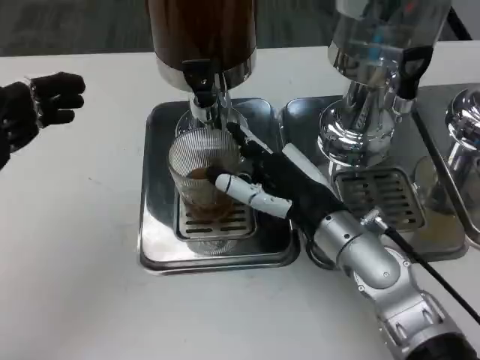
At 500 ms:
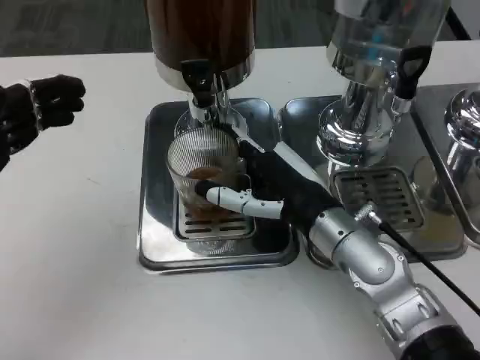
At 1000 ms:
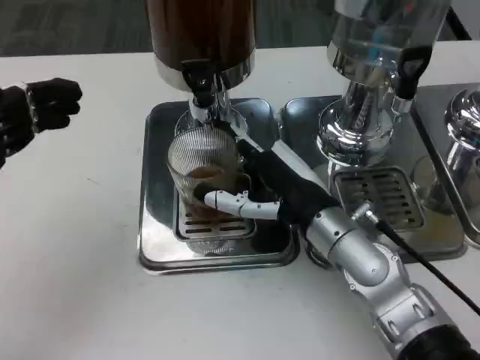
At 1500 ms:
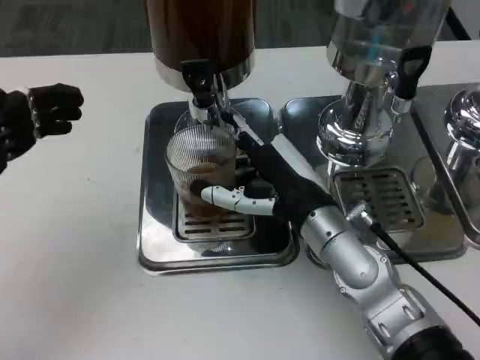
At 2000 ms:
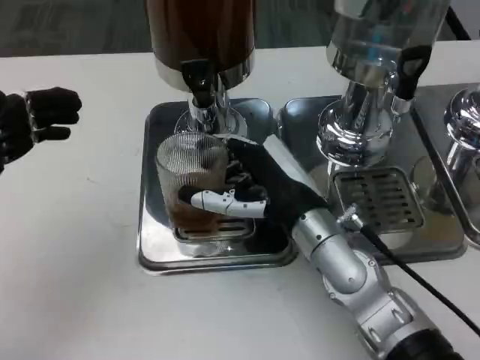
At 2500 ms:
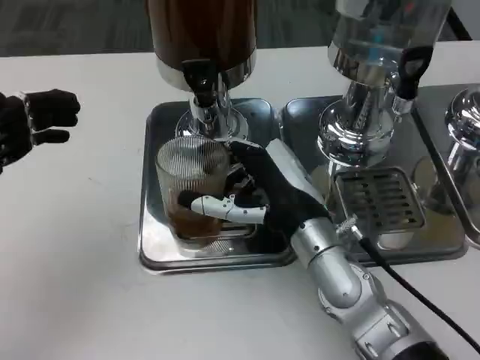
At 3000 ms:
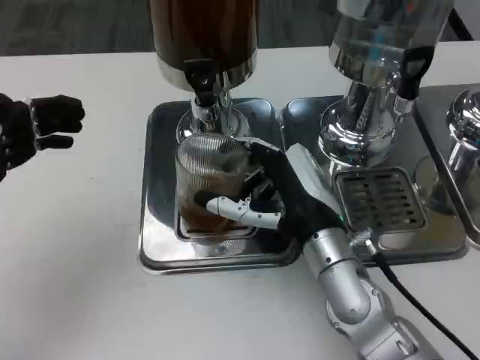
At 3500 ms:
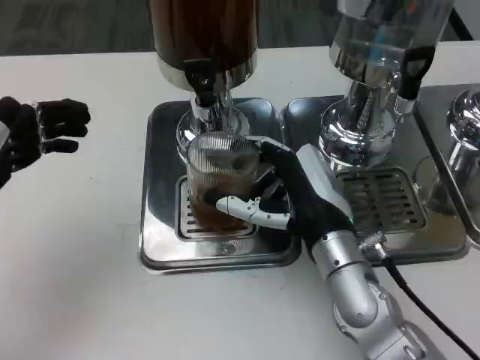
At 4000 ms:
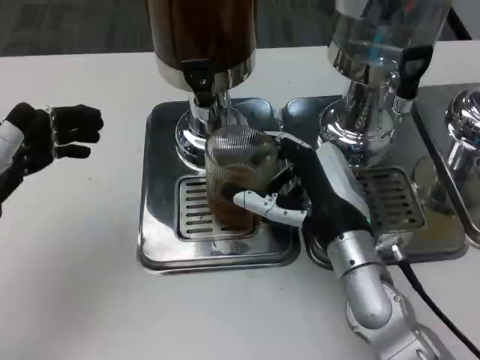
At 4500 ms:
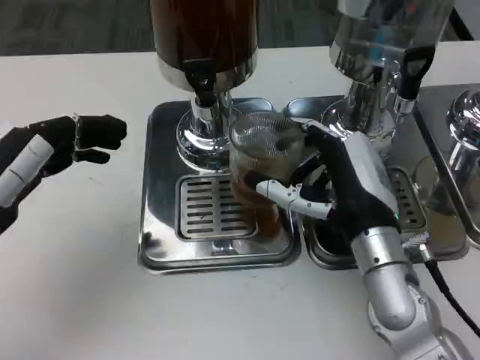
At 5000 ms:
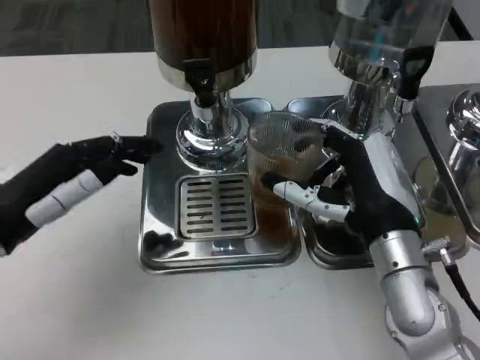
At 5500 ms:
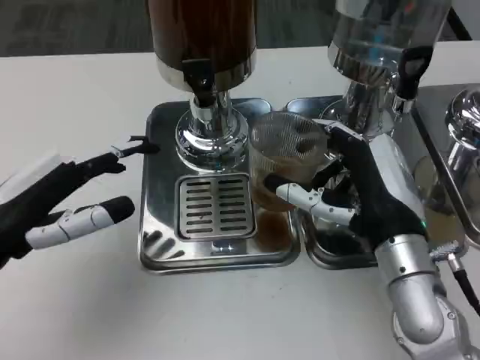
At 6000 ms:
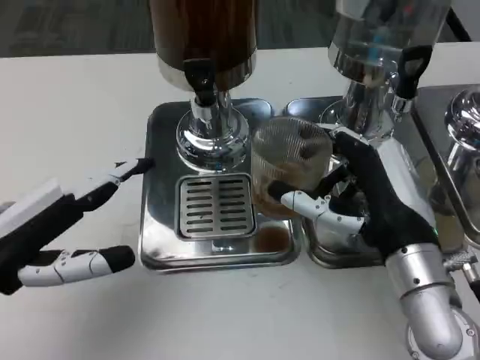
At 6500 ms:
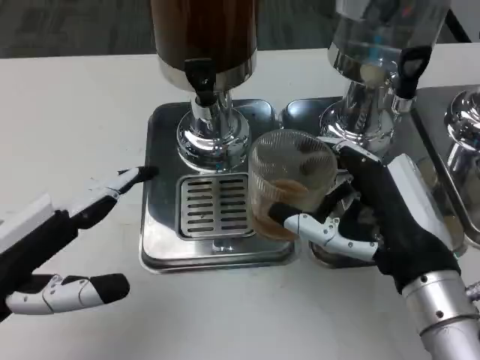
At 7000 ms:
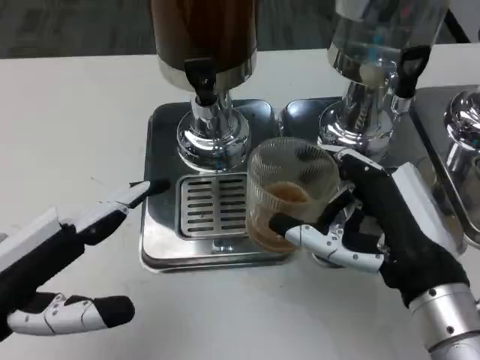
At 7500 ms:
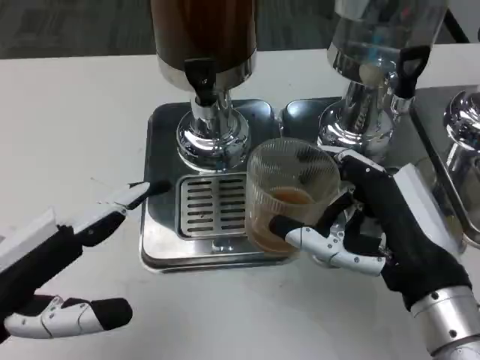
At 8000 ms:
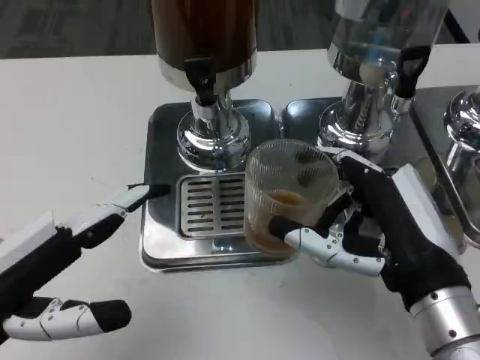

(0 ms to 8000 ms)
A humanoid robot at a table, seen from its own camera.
Task of the whole recording: Grasp the cup under the faucet to collect the drink, then remove the cup.
0 ms - 2000 ms: The hands make only small movements.
4000 ms - 6000 ms: The right hand ends up roughly 5 cm from where it was.
6000 ms - 8000 ms: The right hand heads backward, covering roughly 5 cm.

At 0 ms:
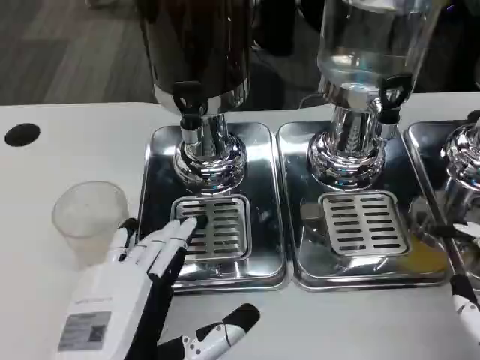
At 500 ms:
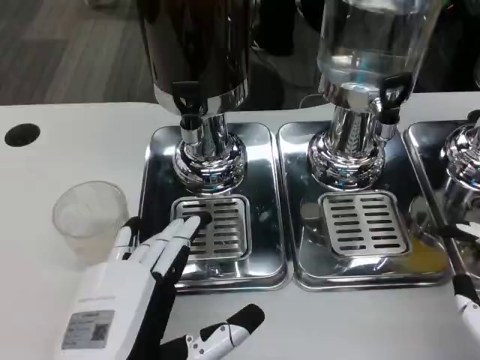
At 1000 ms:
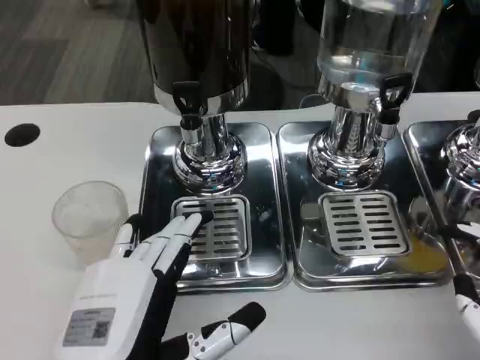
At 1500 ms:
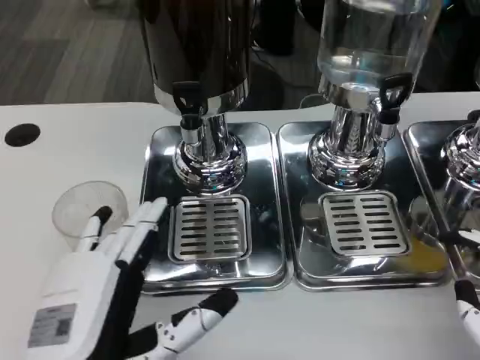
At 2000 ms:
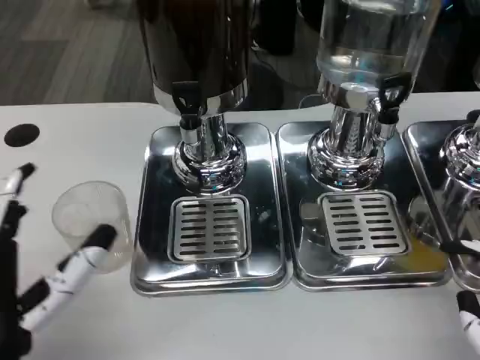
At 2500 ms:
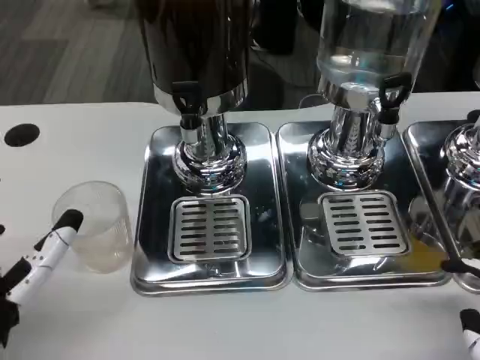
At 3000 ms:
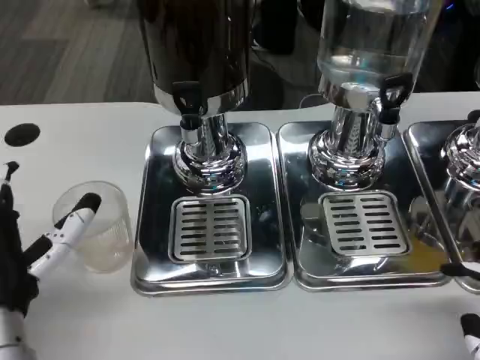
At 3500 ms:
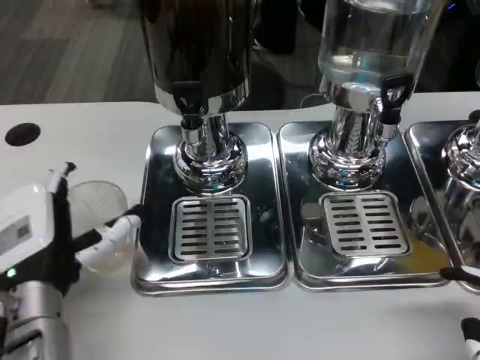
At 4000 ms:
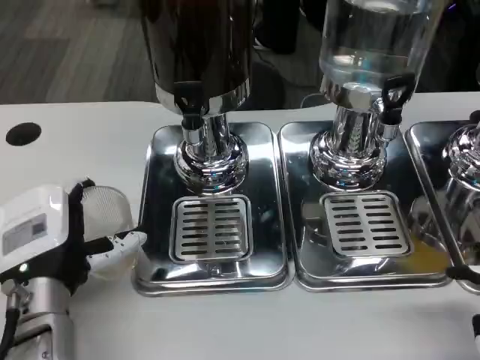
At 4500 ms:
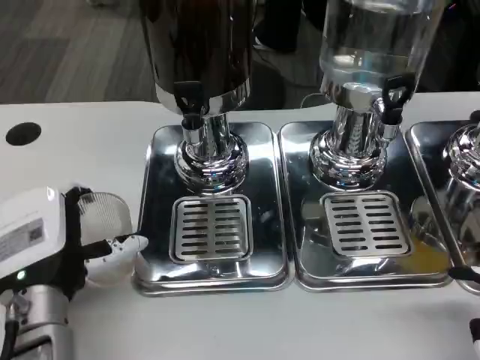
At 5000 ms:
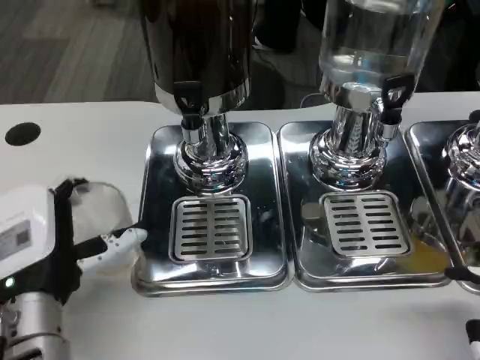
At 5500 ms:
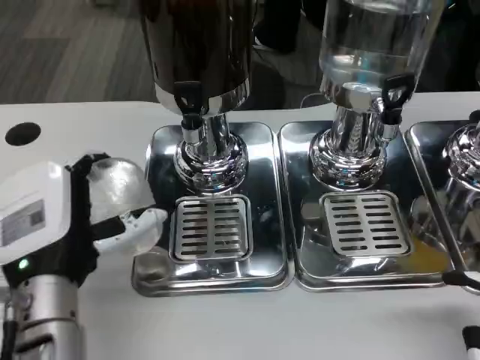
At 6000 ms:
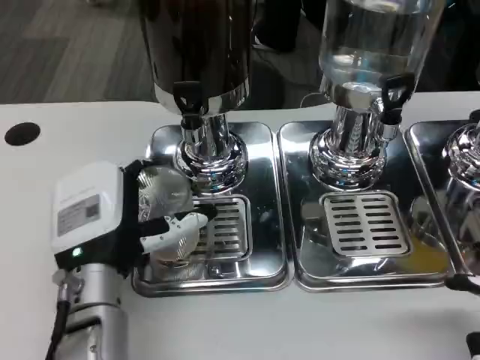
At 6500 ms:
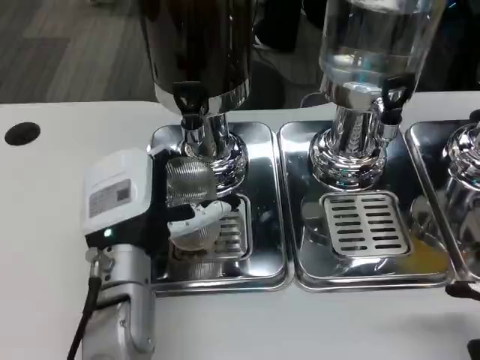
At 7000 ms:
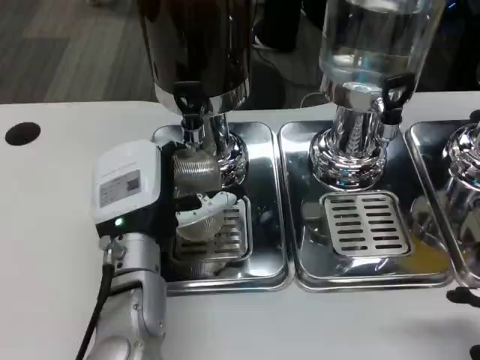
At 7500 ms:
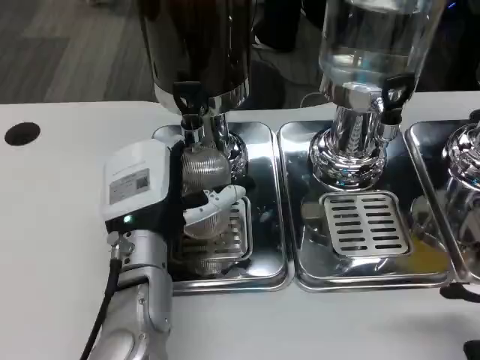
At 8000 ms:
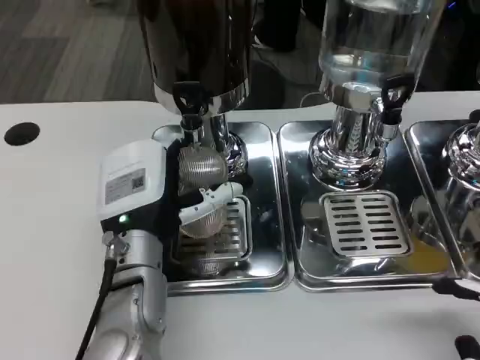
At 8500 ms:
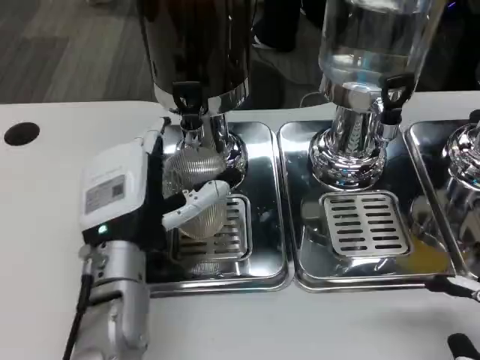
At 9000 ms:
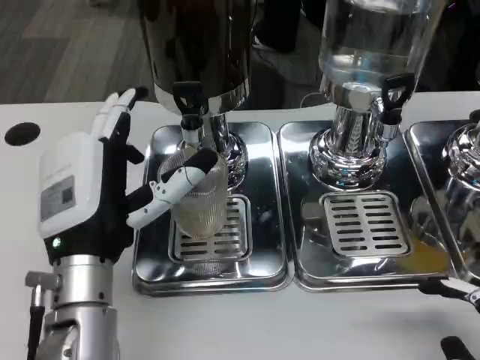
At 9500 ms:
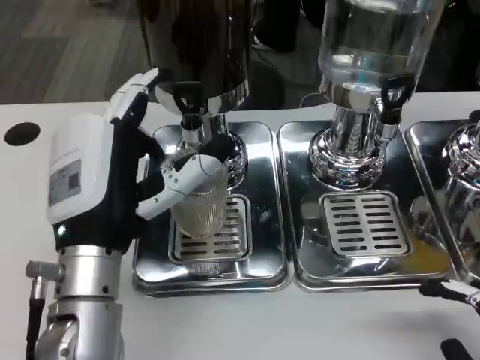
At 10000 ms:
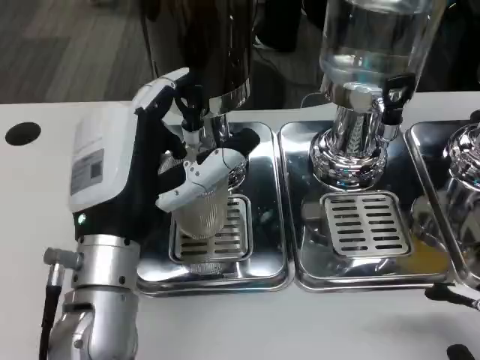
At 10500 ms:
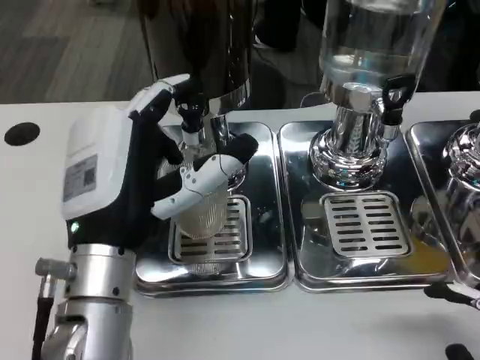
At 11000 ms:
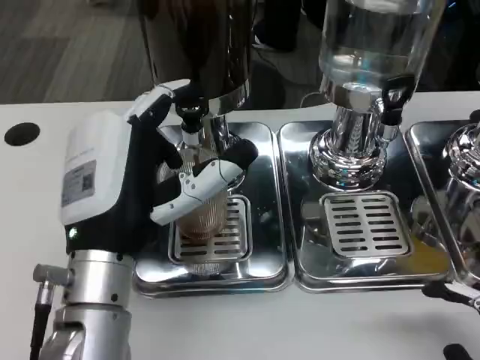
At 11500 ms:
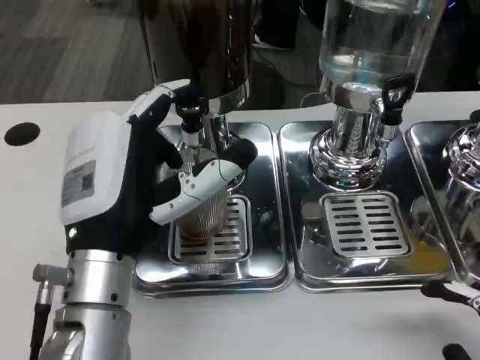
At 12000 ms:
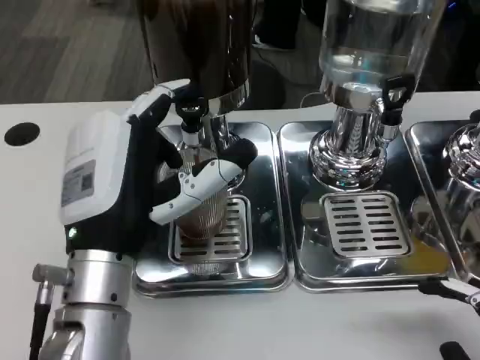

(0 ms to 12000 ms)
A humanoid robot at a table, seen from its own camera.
Task of the whole recording: Grasp the cup under the faucet to collect the drink, then remove the cup.
0 ms - 2000 ms: The left hand moves to the left, approximately 5 cm.
2000 ms - 4000 ms: The left hand shifts roughly 10 cm forward.
4000 ms - 6000 ms: The hands move only a little.
6000 ms - 8000 ms: The hands make only small movements.
8000 ms - 10000 ms: The left hand moves approximately 5 cm.
10000 ms - 12000 ms: The hands stay close to where they were, moving slightly.

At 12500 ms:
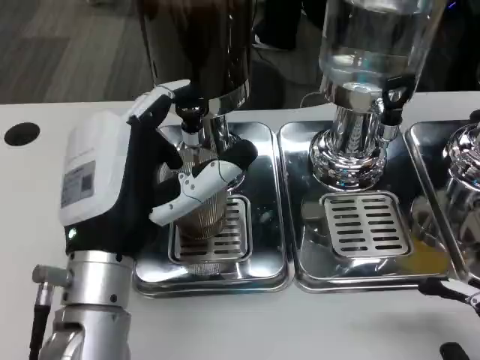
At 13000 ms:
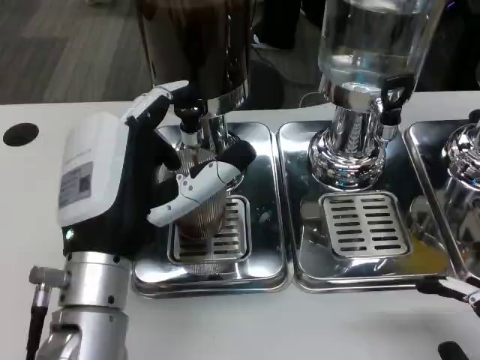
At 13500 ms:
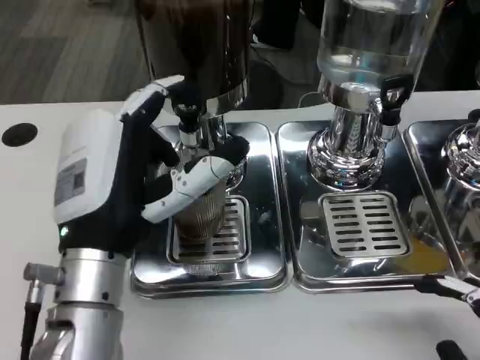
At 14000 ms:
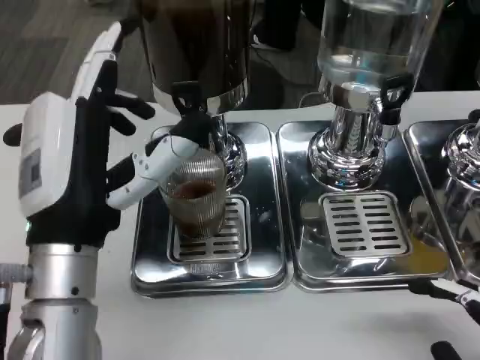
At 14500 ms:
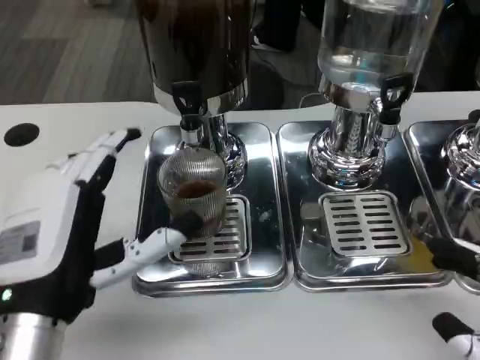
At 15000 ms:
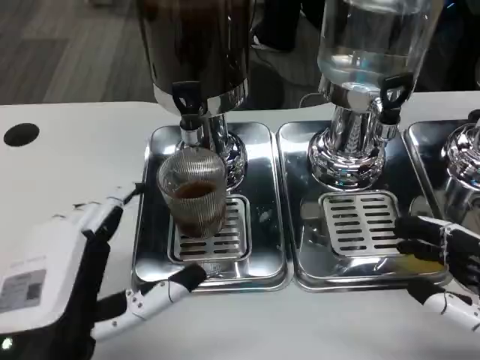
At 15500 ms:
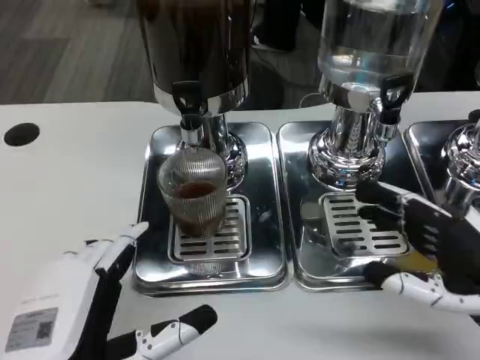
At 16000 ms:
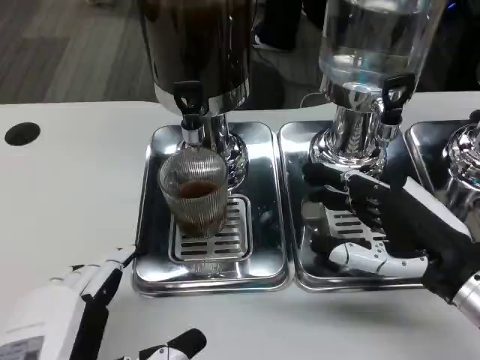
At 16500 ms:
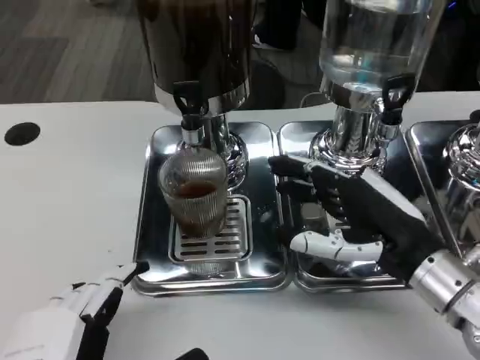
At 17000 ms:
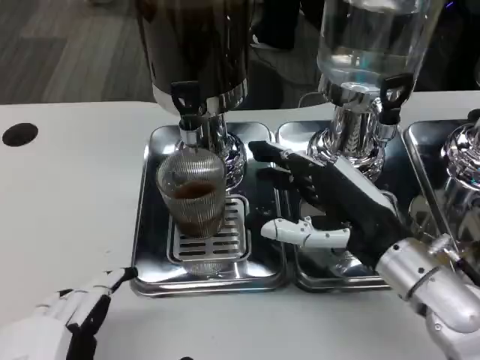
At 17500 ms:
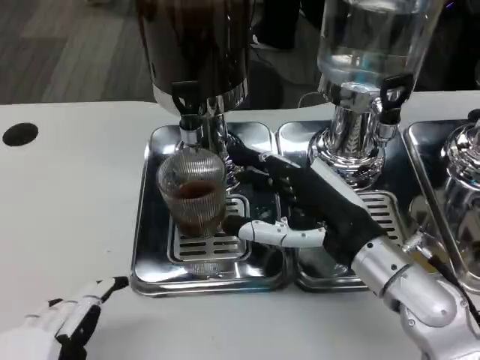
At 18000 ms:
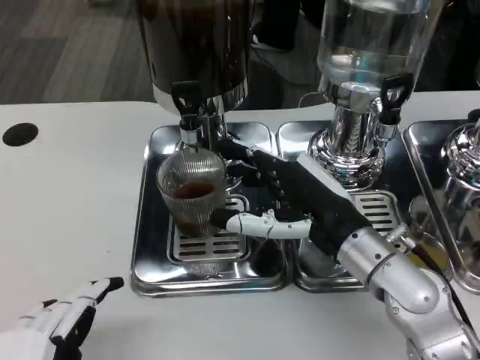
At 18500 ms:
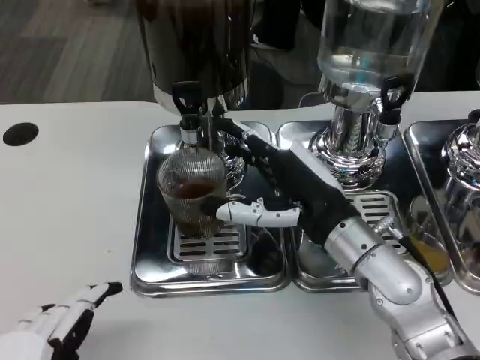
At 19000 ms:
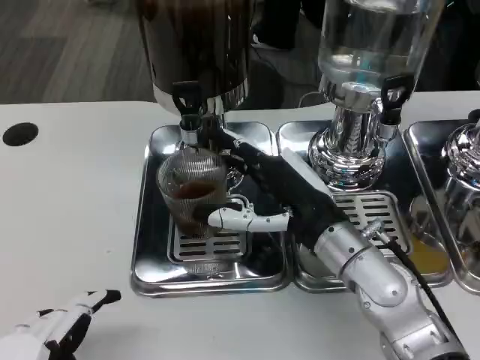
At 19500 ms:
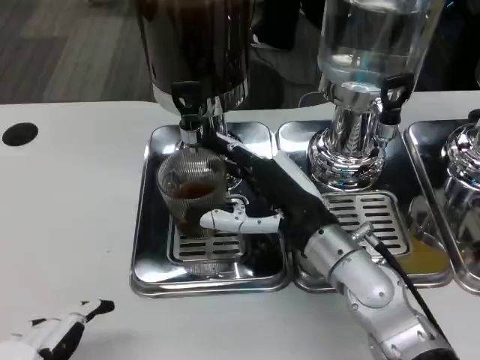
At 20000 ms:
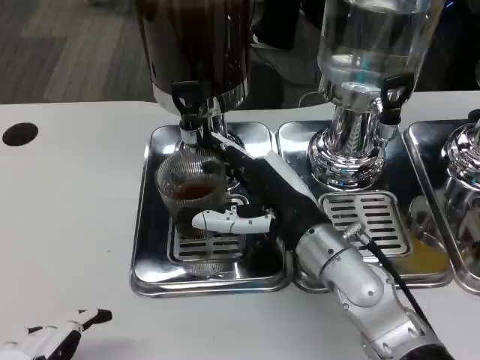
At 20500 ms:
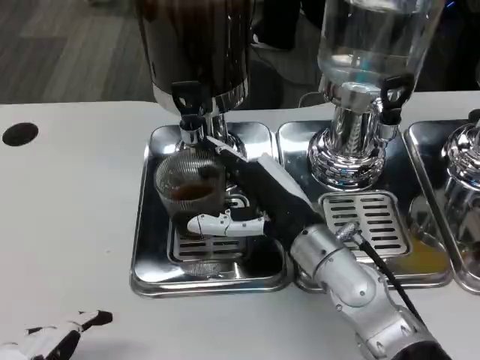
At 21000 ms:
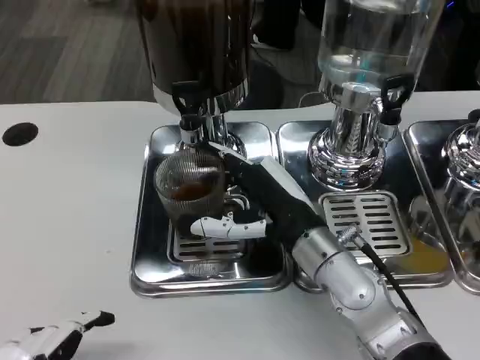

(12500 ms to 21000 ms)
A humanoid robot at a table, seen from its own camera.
Task of the whole recording: Grasp the cup under the faucet to collect the drink, then remove the cup.
12500 ms - 14500 ms: The left hand changes place by about 5 cm.
14500 ms - 16500 ms: The left hand goes about 10 cm backward. The right hand heads forward and to the left, covering approximately 15 cm.
16500 ms - 19000 ms: The right hand goes roughly 10 cm to the left.
19000 ms - 21000 ms: There are only small adjustments of the hands.